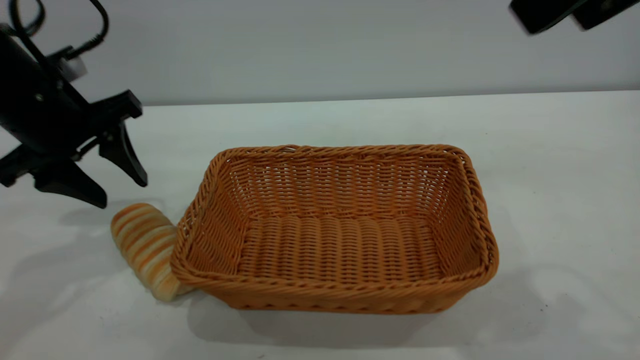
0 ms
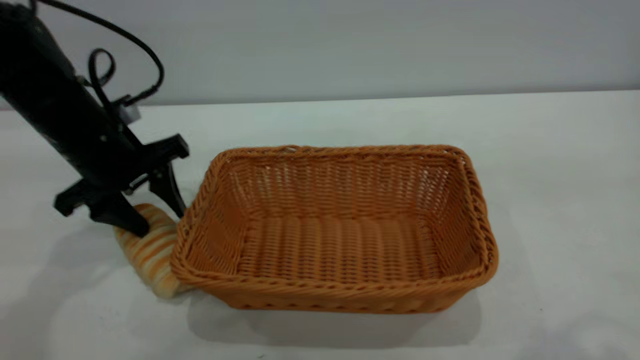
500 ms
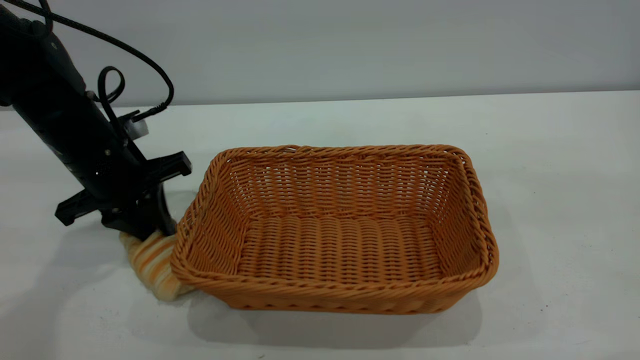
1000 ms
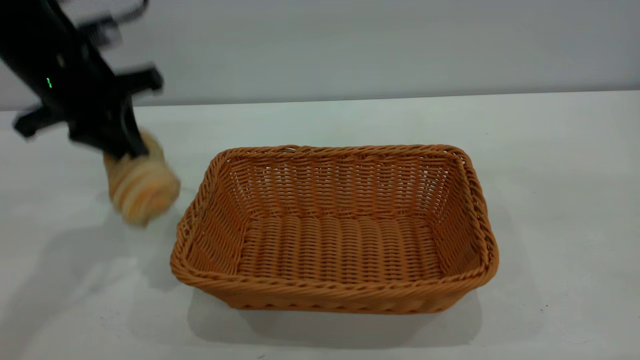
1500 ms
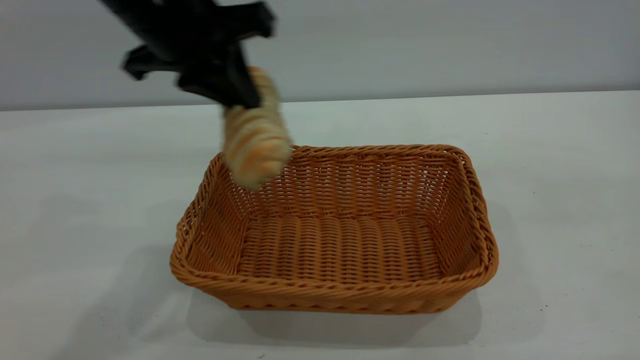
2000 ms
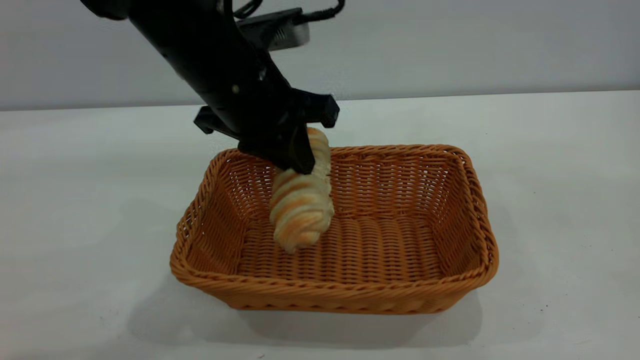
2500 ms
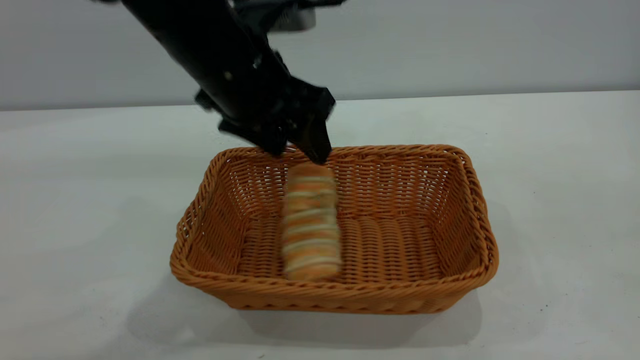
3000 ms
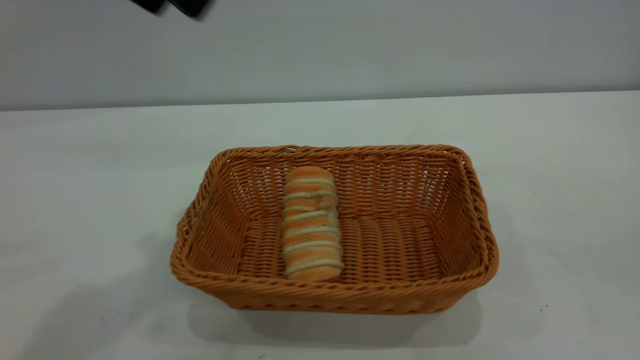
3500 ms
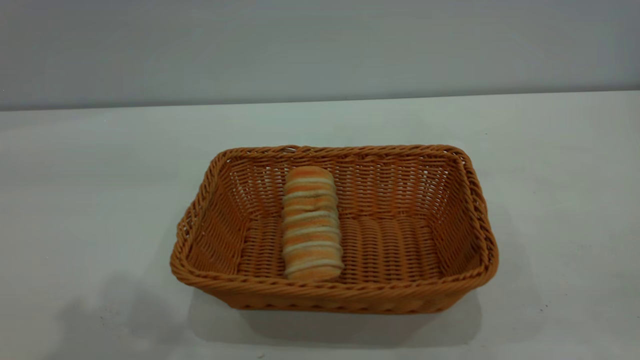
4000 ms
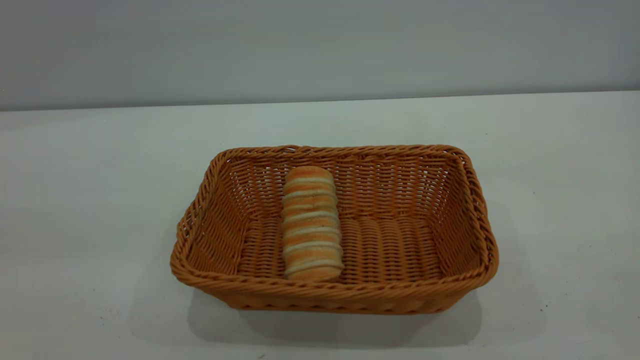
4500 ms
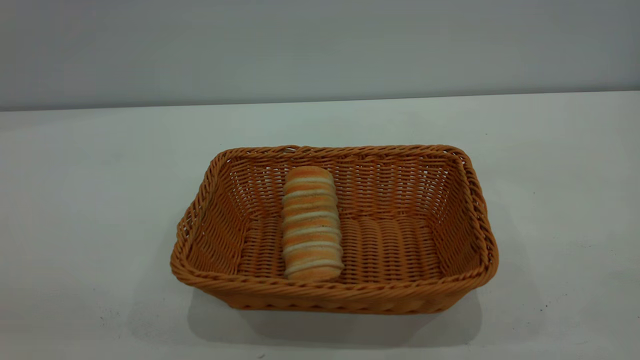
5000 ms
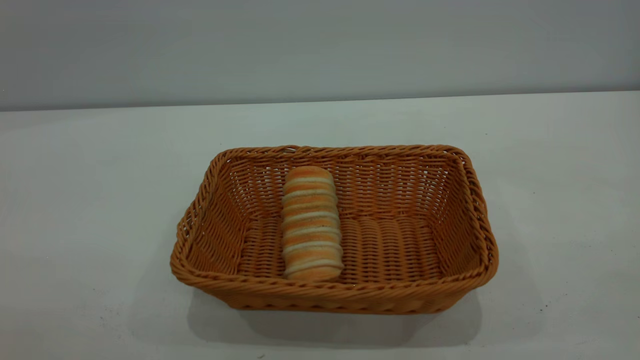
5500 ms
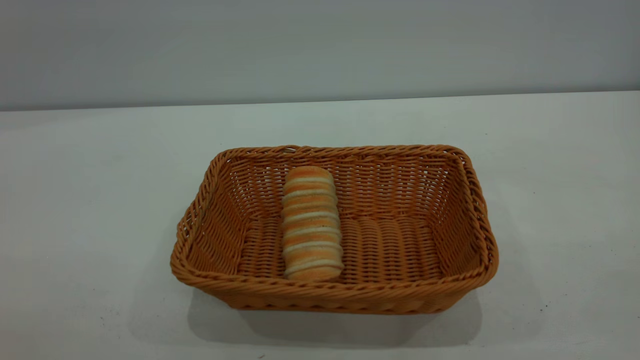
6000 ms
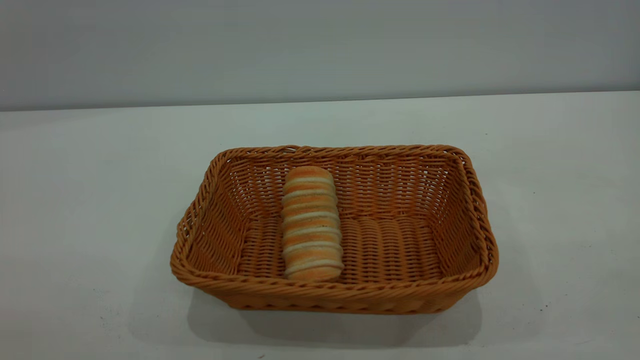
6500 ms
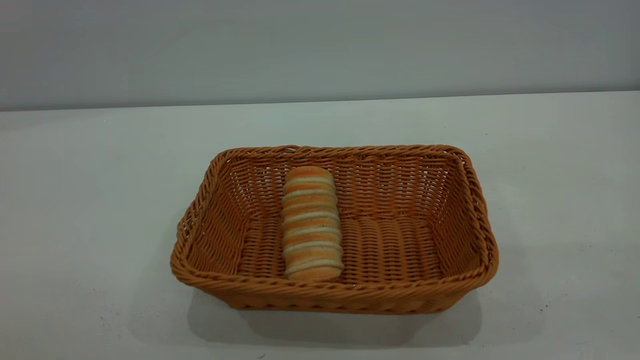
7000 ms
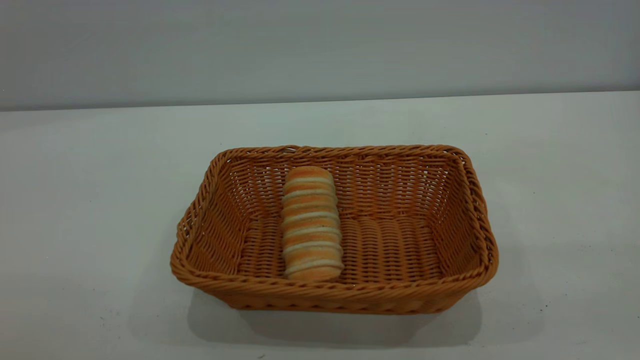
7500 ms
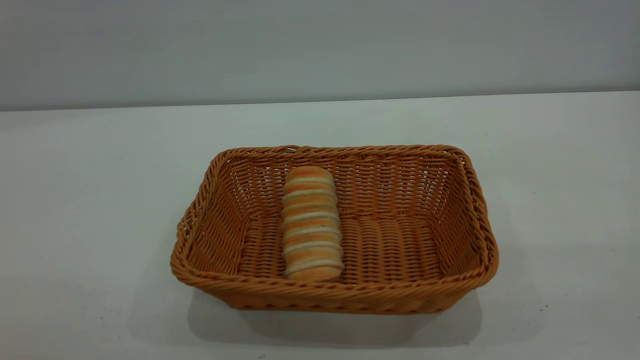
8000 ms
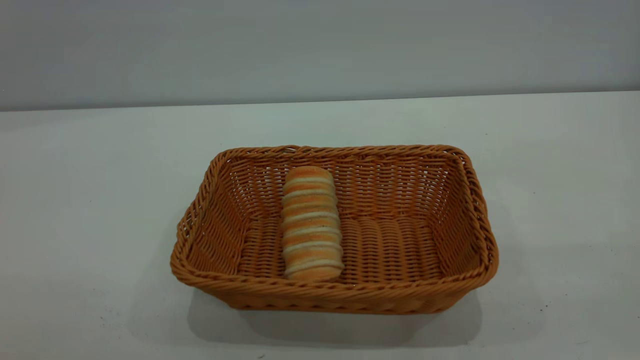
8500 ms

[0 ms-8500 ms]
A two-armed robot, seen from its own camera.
Task of the whole recording: One hand grasps the yellow basket and places it in the middle of the table, while the other hand picks up the long bread and puts it into the yellow basket.
Step, 2000 ms to 3000 ms: place the bread into the basket.
0 ms to 2000 ms: The left gripper heads to the right and upward, covering some 15 cm, and closes. The right gripper heads backward, covering approximately 10 cm.
2000 ms to 4000 ms: The right gripper shifts approximately 15 cm backward and to the right; the left gripper goes about 20 cm upward, backward and to the left, and opens up.
